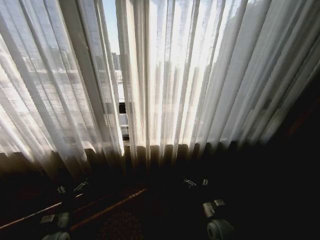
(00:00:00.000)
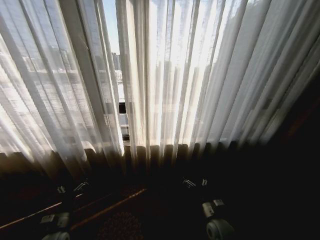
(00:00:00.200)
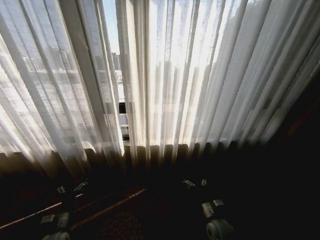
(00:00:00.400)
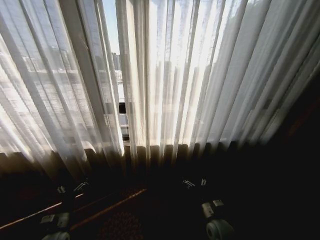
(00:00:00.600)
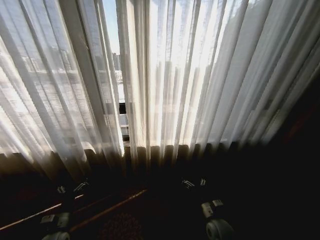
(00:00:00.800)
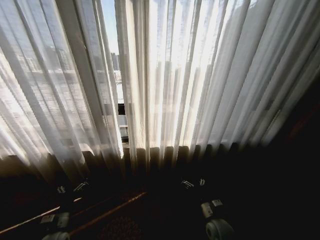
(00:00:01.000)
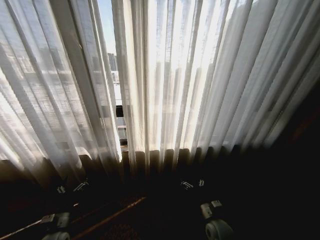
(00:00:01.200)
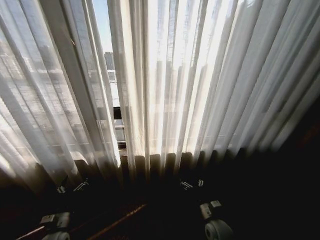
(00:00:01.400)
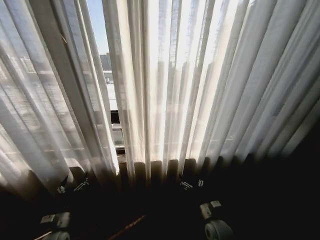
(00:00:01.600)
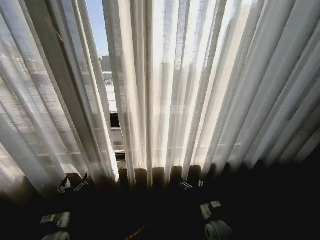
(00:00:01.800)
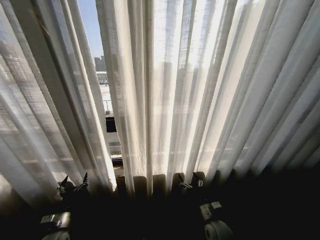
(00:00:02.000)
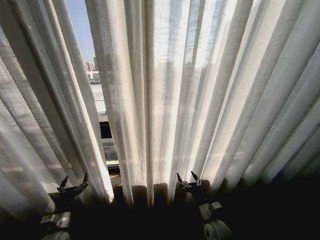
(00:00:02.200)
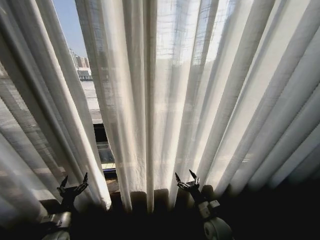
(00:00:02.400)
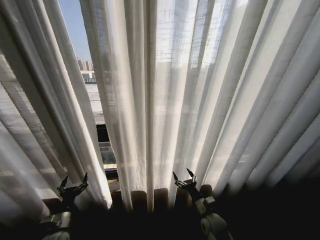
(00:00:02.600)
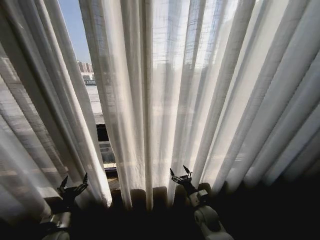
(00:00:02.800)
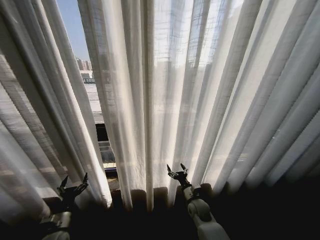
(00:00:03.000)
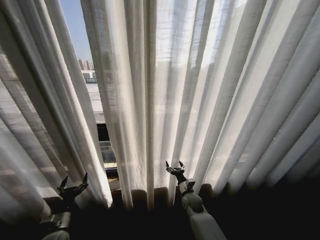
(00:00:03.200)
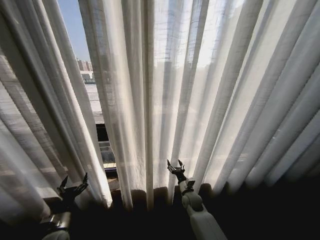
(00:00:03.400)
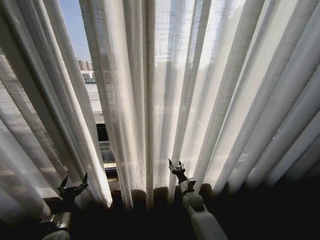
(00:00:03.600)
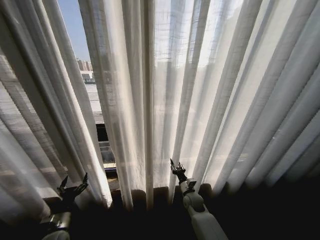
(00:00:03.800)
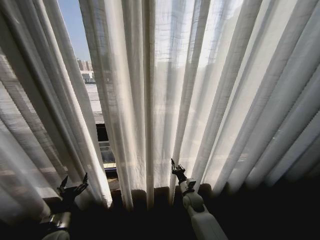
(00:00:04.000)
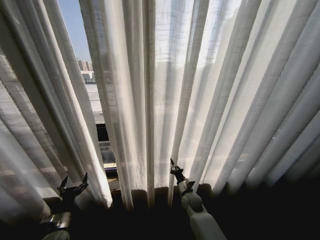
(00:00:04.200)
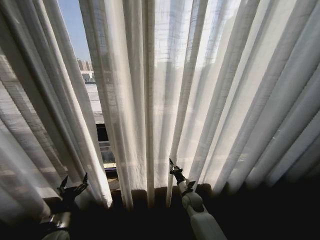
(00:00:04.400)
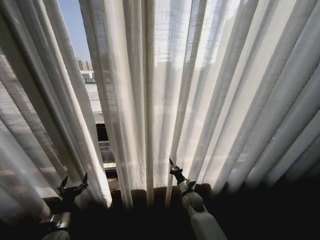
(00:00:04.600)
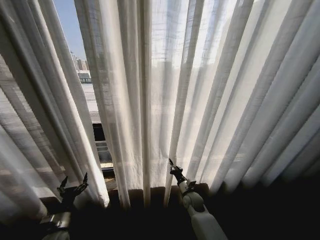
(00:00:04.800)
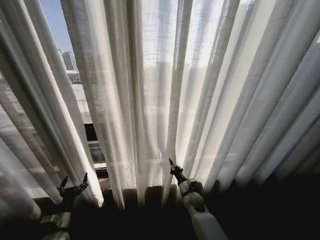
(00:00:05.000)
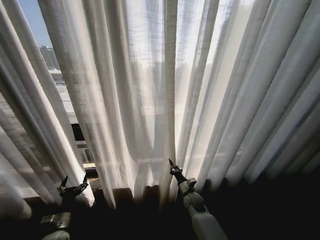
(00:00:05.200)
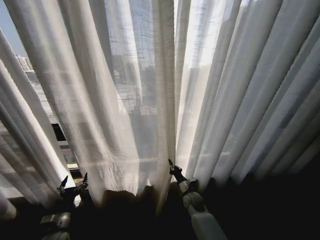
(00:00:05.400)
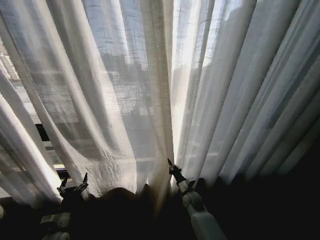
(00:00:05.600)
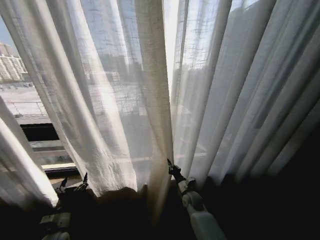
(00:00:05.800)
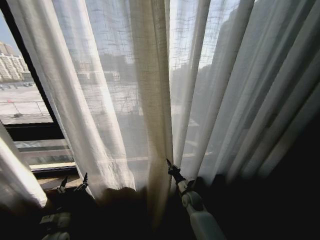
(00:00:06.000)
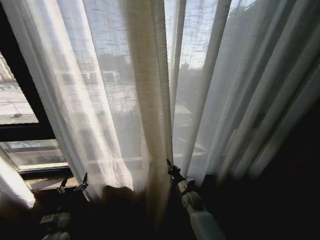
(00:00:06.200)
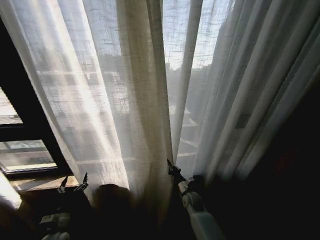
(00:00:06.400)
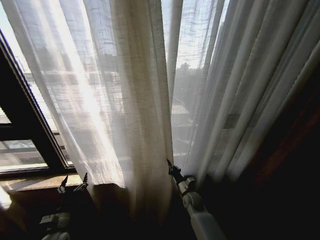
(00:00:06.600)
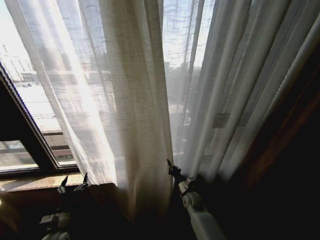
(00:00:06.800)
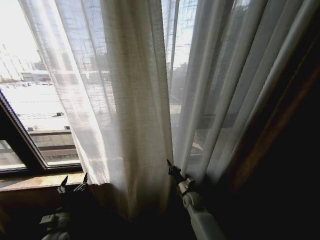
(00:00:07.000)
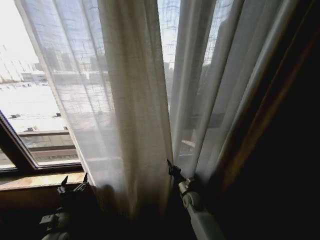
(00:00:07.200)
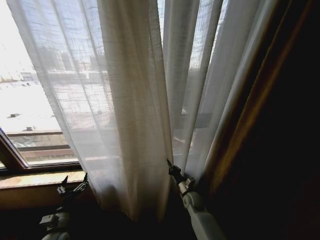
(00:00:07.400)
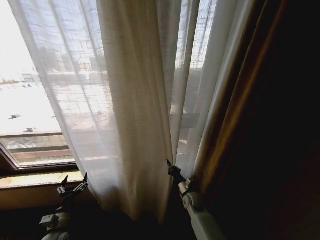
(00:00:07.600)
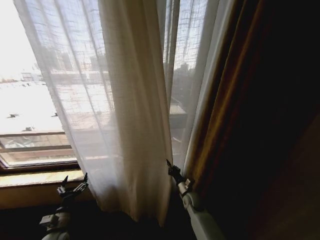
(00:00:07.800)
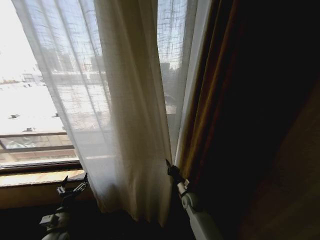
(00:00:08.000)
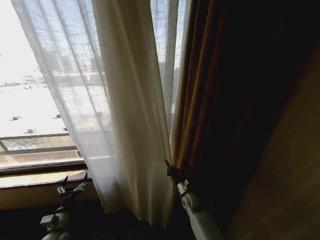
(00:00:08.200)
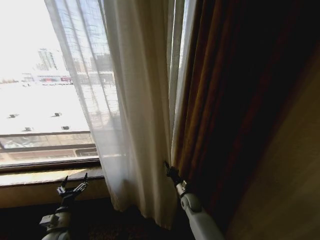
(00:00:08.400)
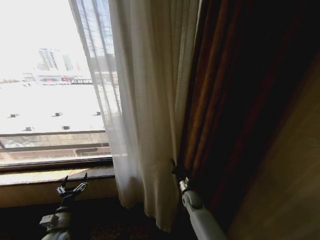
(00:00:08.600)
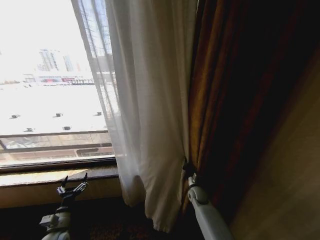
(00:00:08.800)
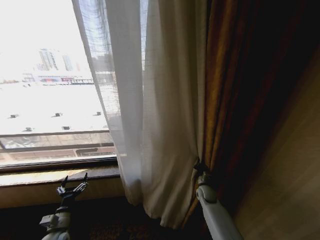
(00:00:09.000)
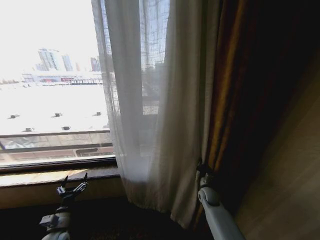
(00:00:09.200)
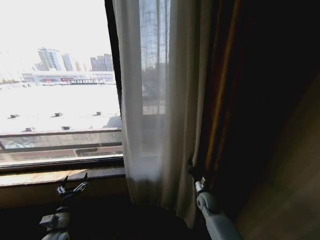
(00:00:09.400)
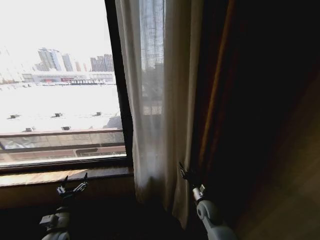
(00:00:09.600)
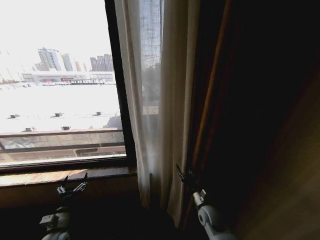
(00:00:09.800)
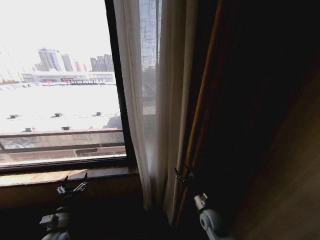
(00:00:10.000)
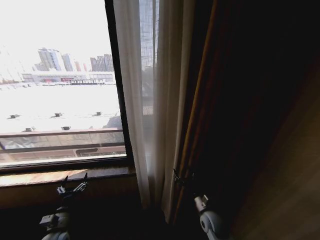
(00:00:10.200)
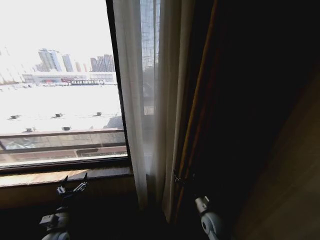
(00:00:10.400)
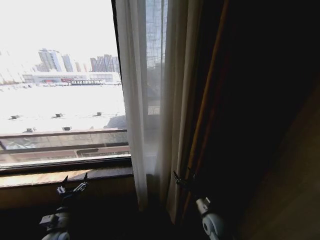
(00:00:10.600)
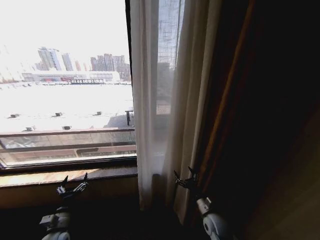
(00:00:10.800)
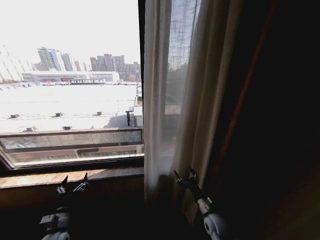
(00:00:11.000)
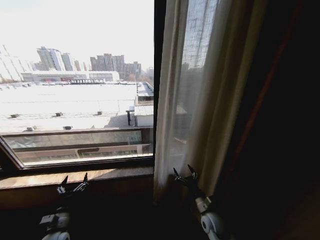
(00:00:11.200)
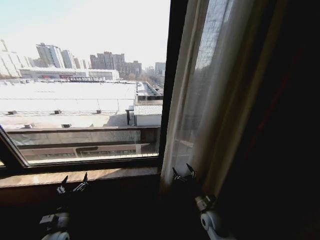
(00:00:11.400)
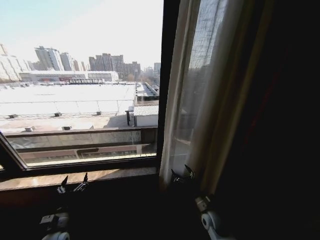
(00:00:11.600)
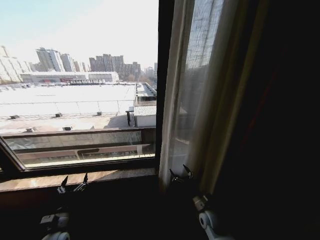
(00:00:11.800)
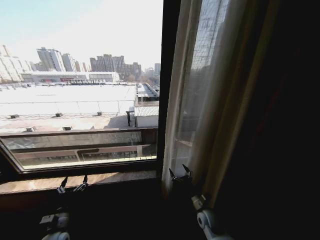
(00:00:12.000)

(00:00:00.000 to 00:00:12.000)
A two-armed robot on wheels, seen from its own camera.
Task of the whole recording: Open the curtains by pulling them apart, changing their state from closed to fully open.
00:00:01.600 - 00:00:03.000: The right gripper moves forward, some 10 cm.
00:00:03.000 - 00:00:04.400: The right gripper closes up.
00:00:07.600 - 00:00:09.000: The right gripper is displaced to the right by about 10 cm.
00:00:09.000 - 00:00:10.400: The right gripper travels backward by about 15 cm, and opens its fingers.

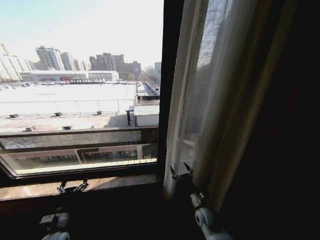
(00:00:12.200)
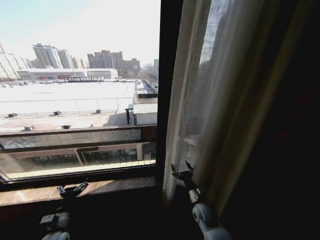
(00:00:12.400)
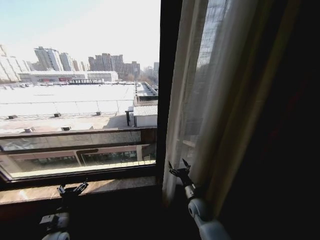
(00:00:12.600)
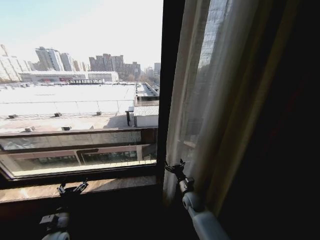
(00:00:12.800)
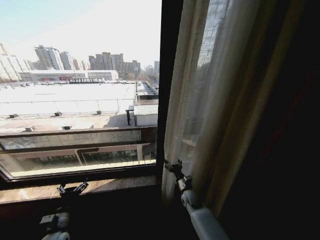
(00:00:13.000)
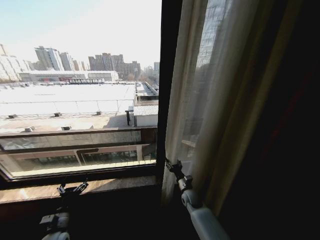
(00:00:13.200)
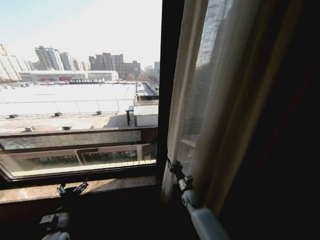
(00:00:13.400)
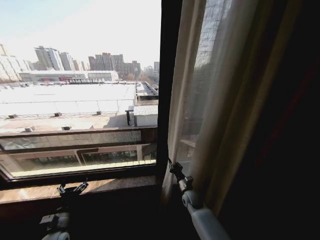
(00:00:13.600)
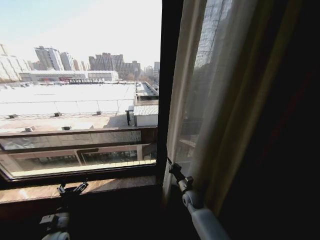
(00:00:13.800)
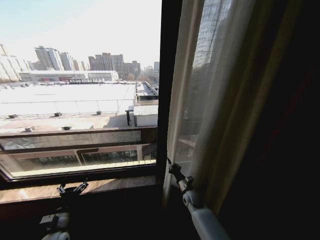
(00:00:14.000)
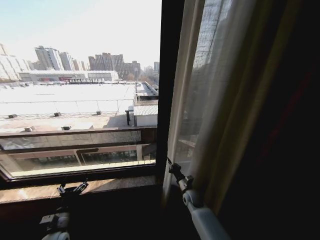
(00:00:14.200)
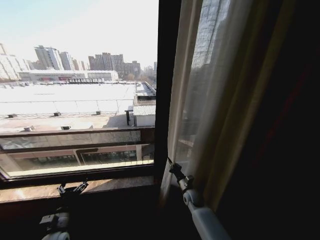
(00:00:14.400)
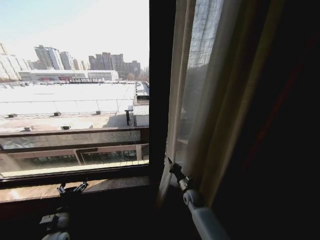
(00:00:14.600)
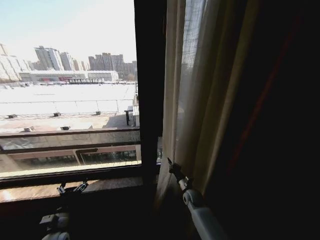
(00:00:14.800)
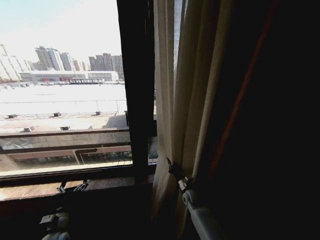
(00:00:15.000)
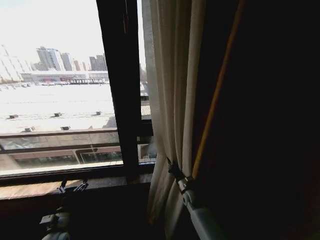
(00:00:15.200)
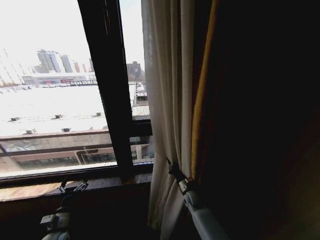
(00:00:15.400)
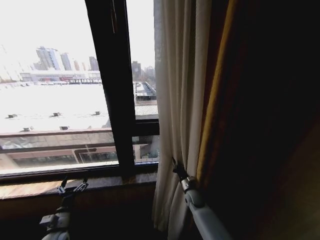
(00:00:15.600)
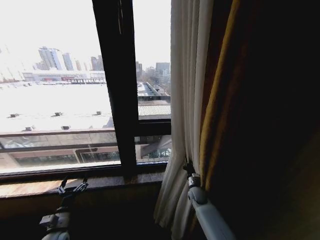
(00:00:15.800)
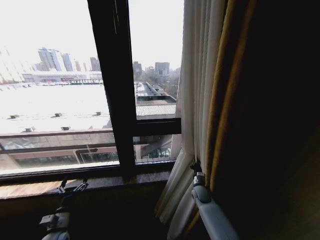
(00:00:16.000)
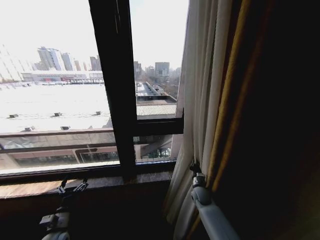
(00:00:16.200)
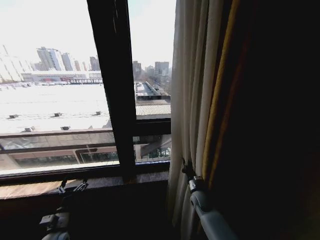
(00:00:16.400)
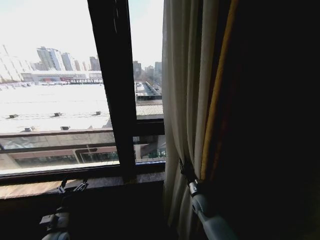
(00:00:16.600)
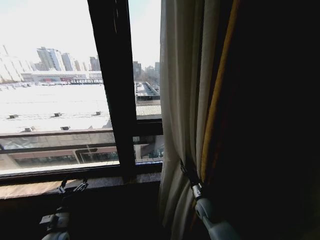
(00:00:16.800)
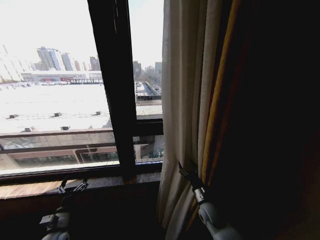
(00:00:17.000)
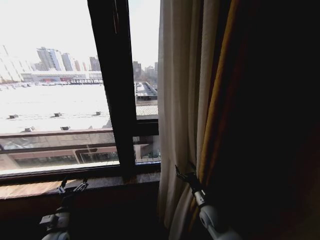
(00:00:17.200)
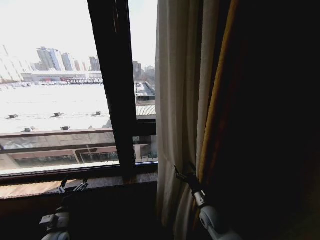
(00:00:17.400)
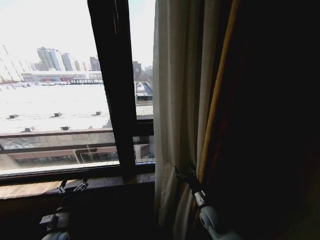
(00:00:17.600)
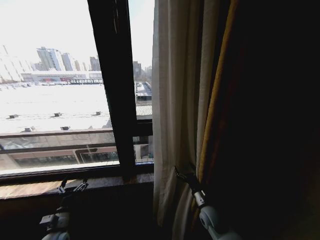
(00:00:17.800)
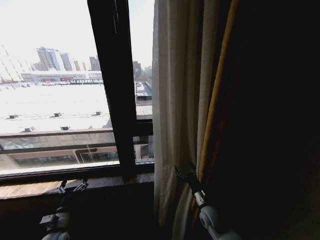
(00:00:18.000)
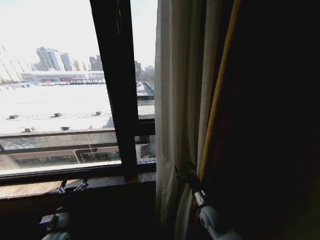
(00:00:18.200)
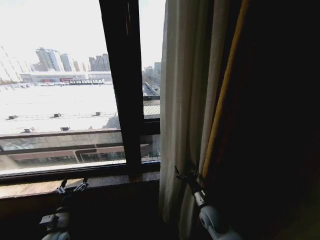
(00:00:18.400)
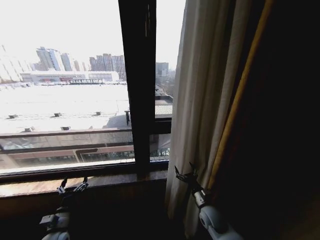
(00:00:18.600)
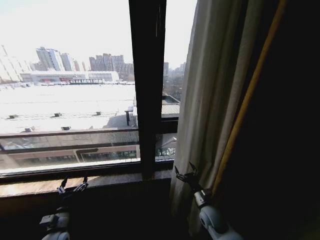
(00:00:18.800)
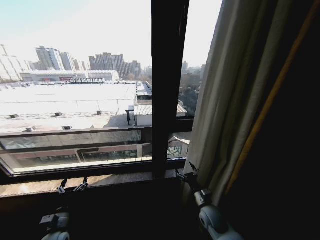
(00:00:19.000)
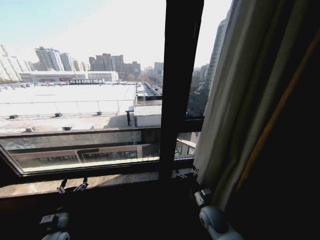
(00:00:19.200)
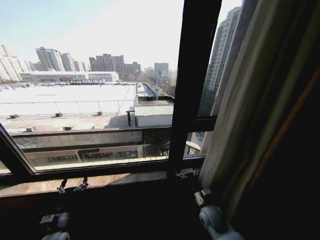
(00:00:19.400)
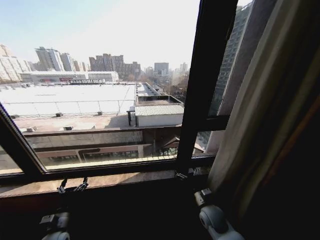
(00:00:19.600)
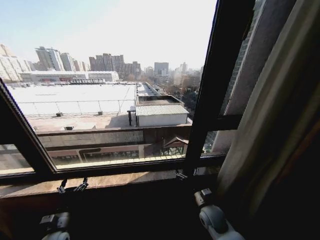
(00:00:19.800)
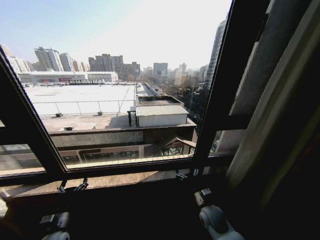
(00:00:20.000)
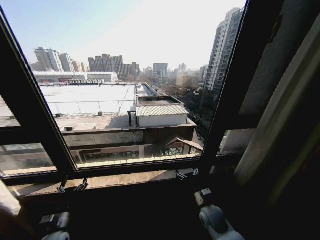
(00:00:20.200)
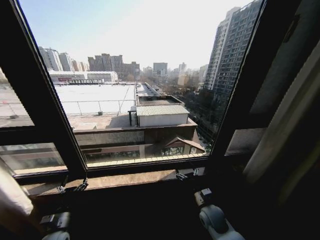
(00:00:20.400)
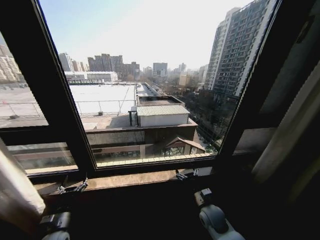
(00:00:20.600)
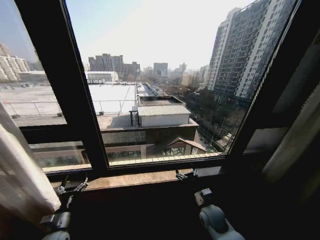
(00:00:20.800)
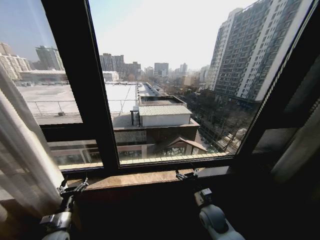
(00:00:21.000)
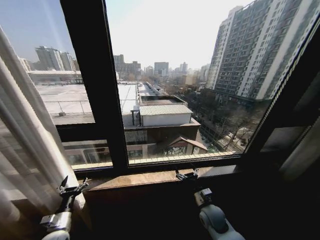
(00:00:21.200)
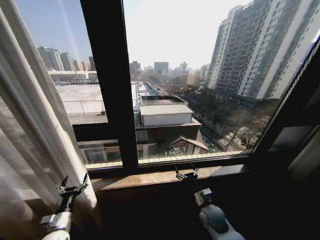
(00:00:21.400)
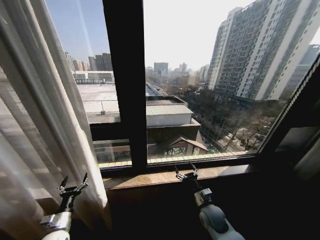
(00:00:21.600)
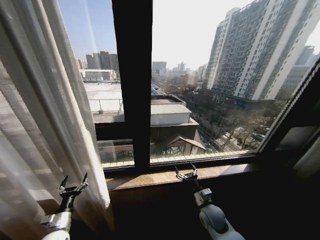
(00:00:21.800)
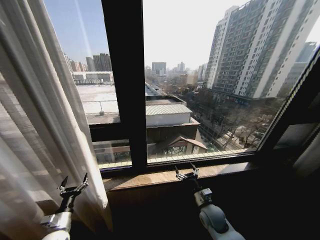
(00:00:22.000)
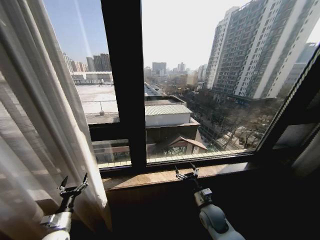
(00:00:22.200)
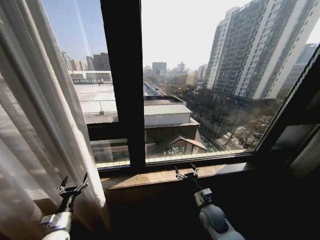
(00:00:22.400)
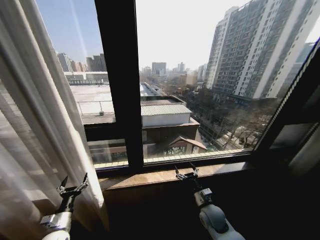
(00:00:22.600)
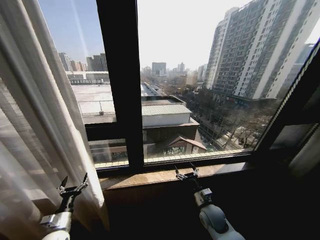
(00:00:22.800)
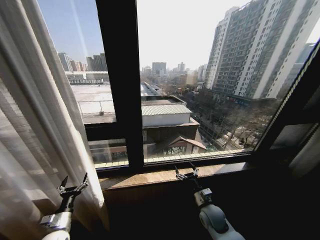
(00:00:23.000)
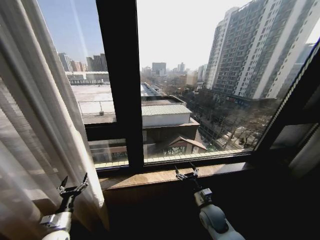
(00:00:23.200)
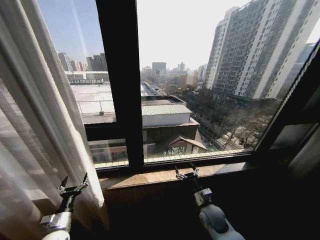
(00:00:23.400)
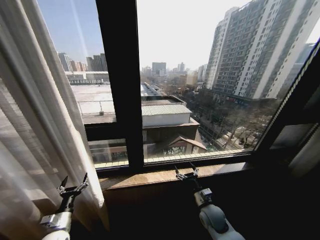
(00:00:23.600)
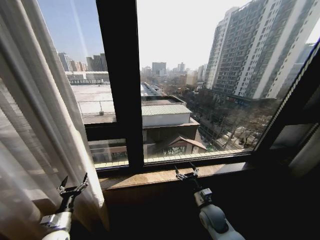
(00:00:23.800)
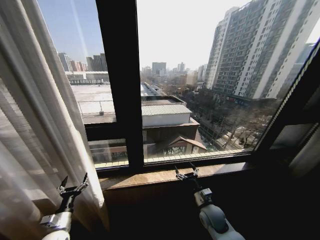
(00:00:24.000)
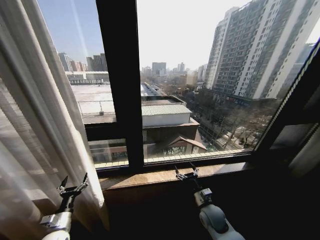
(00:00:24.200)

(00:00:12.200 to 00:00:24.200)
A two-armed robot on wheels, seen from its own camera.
Task of the whole recording: Open the curtains by pulling them apart, changing their state from closed to fully open.
00:00:12.200 - 00:00:13.800: The right gripper moves forward, about 10 cm, and closes its fingers.
00:00:15.200 - 00:00:16.600: The right gripper moves about 5 cm.
00:00:16.600 - 00:00:18.200: The right gripper heads backward, covering about 5 cm, and opens.
00:00:22.600 - 00:00:24.200: The two grippers keep their place.
